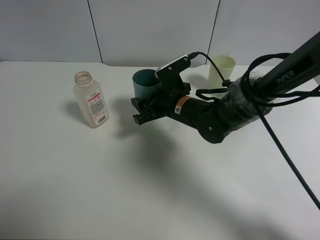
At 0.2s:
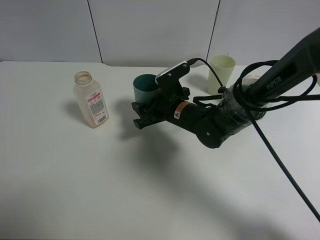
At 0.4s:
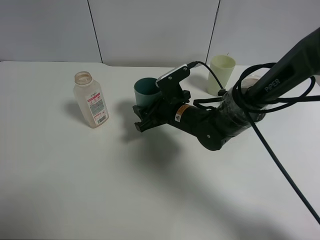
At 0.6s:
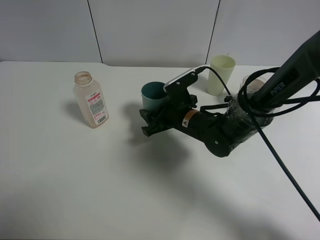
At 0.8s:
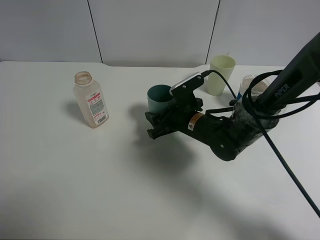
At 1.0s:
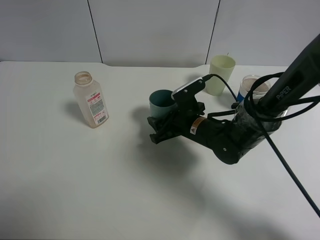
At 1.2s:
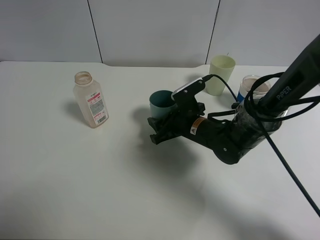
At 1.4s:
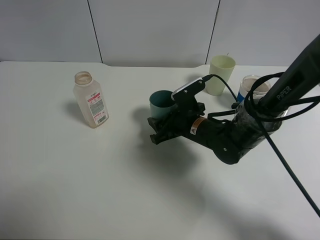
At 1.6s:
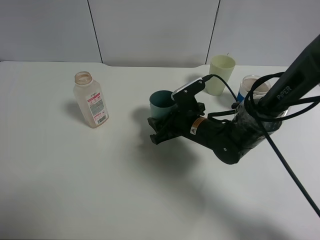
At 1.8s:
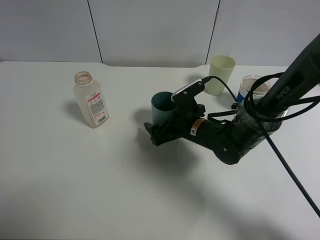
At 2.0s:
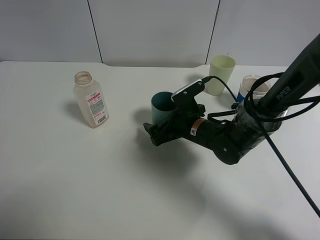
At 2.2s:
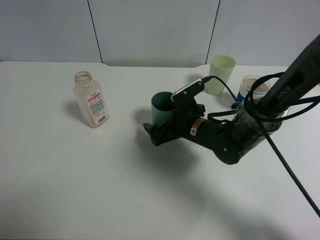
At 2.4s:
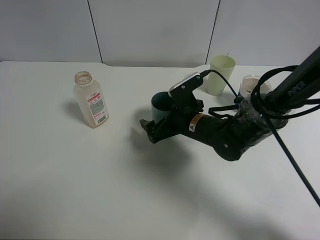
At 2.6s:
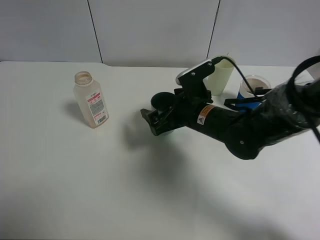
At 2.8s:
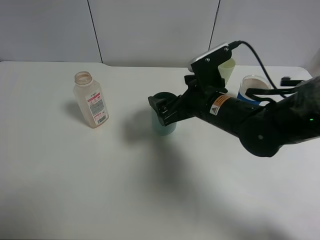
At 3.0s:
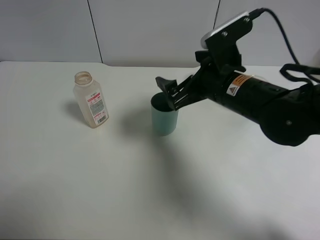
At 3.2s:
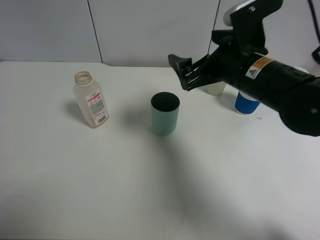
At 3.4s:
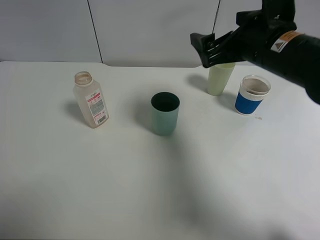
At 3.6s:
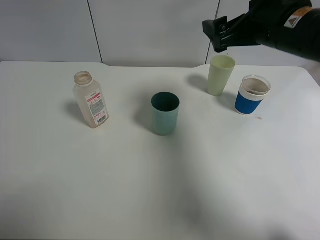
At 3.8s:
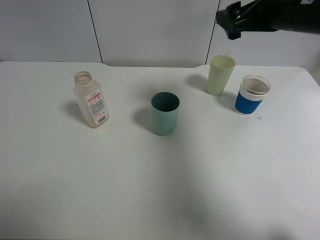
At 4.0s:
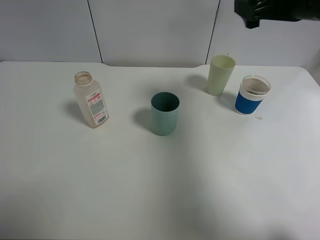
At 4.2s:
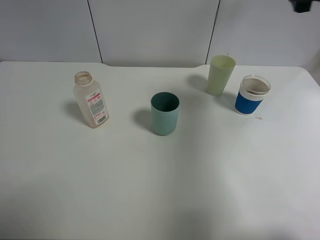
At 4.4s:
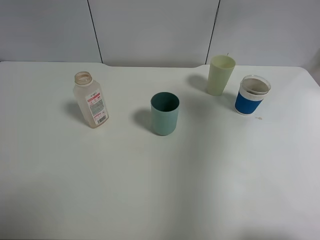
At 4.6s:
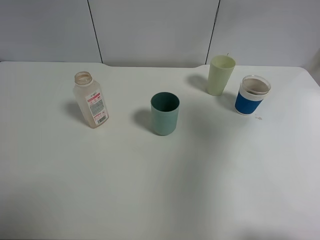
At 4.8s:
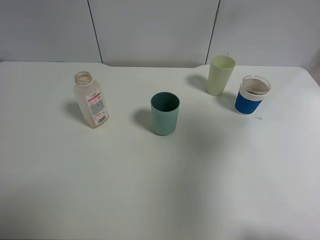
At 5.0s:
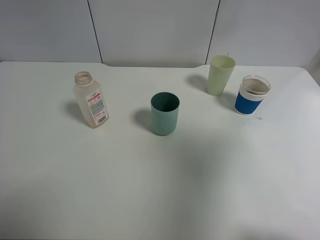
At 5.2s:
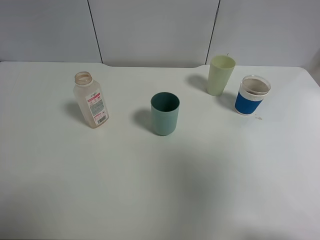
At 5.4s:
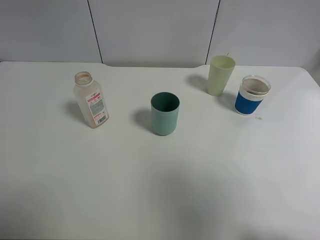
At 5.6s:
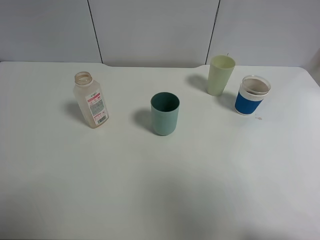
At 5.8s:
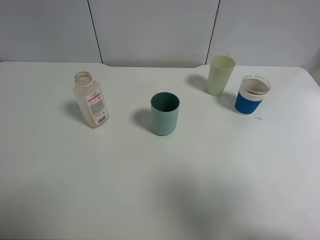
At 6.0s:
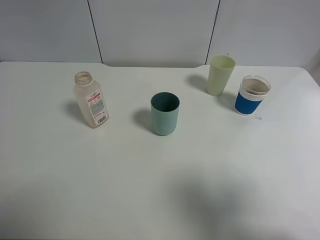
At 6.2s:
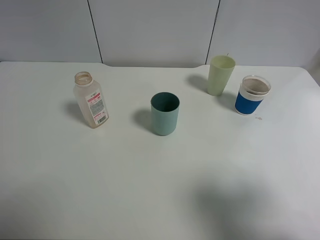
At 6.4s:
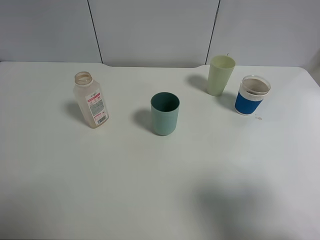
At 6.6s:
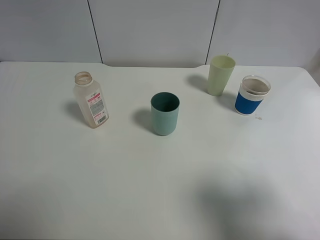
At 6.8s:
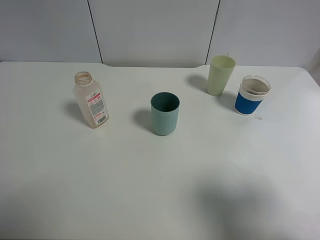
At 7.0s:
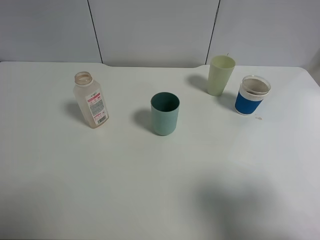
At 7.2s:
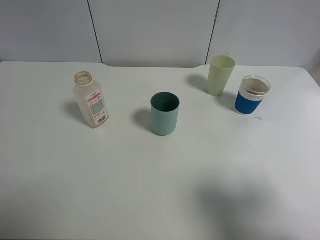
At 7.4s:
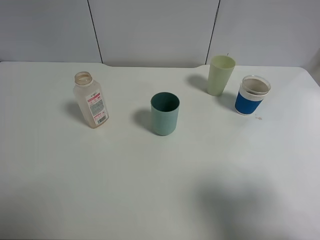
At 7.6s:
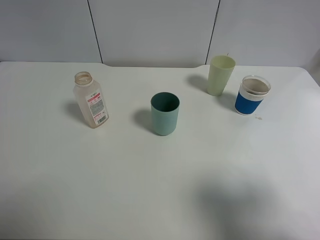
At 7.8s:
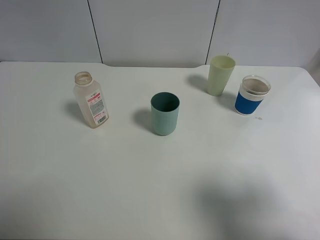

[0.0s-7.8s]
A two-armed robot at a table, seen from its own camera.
Task of the whole recording: use a clamp to hold the bottle of the drink, pour the beverage into a random cup, then clamp the cup containing the drink and pour the drink into another random cup.
Step, 0.0s to 2.4s: Place the blue plastic cup on the table with right gripper.
0.0s to 1.6s: The right gripper changes place by about 5 cm.
1.6s to 3.2s: The right gripper moves upward, some 15 cm, and opens its fingers.
3.2s to 4.6s: The right gripper is displaced to the right, upward and backward by about 25 cm.
4.6s to 6.2s: The right gripper heads backward and downward, covering about 20 cm.
6.2s to 7.8s: The two grippers keep their place.

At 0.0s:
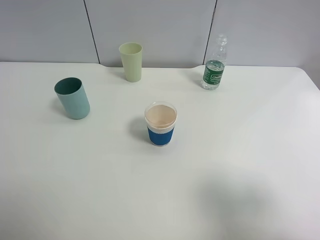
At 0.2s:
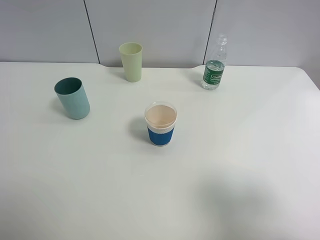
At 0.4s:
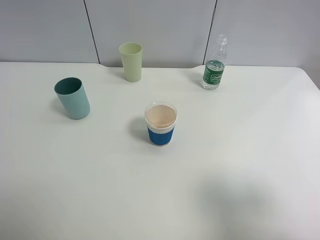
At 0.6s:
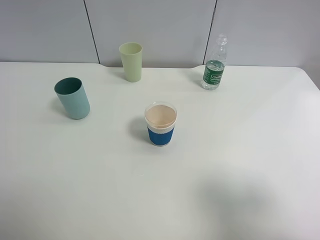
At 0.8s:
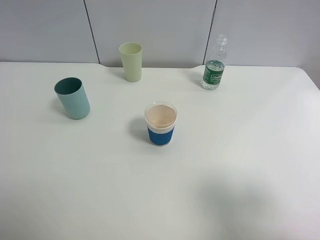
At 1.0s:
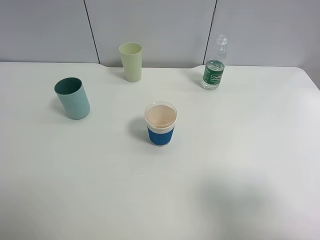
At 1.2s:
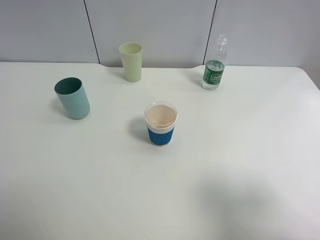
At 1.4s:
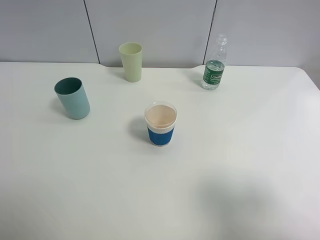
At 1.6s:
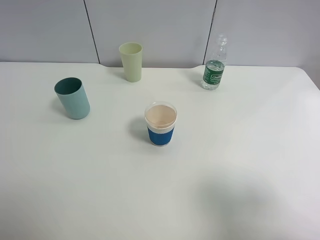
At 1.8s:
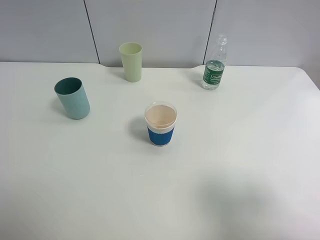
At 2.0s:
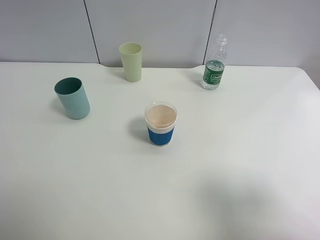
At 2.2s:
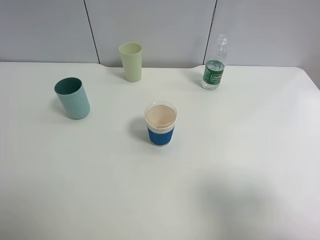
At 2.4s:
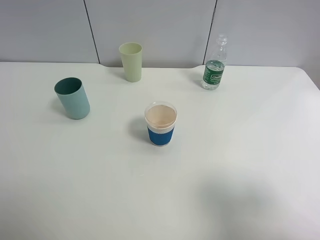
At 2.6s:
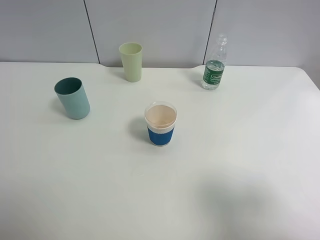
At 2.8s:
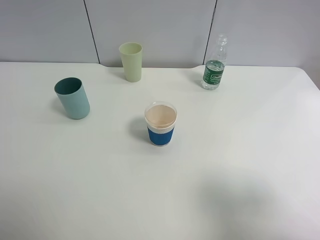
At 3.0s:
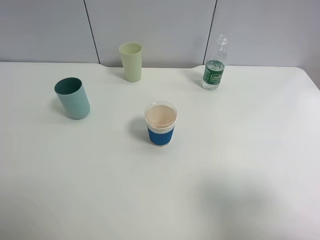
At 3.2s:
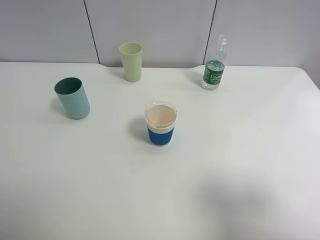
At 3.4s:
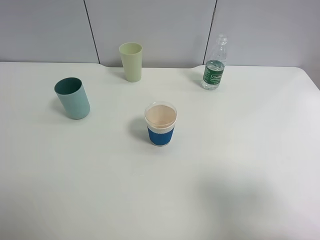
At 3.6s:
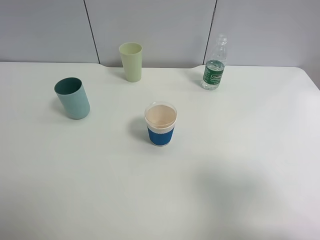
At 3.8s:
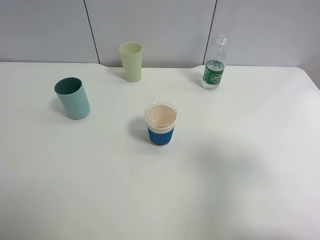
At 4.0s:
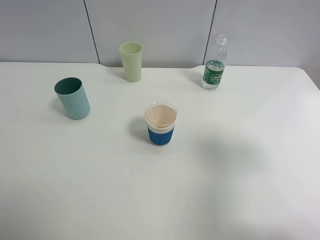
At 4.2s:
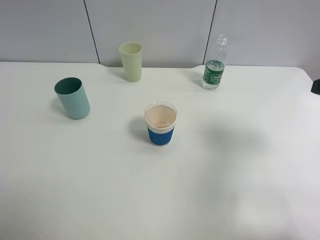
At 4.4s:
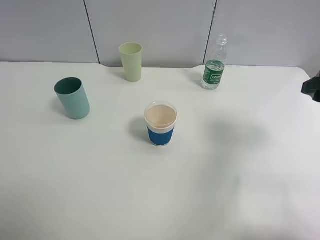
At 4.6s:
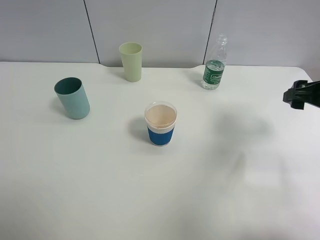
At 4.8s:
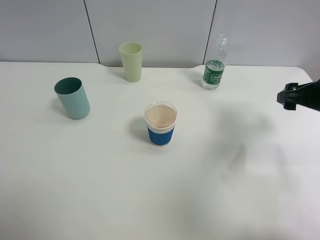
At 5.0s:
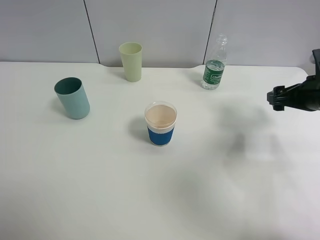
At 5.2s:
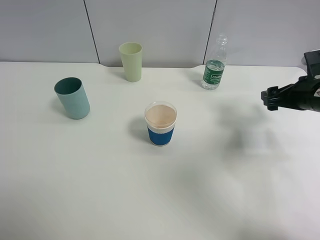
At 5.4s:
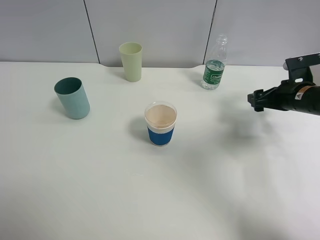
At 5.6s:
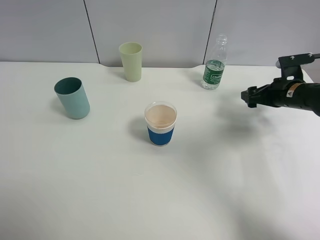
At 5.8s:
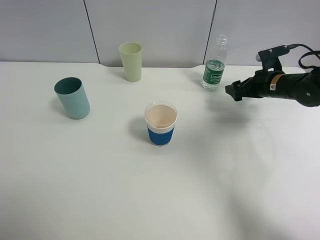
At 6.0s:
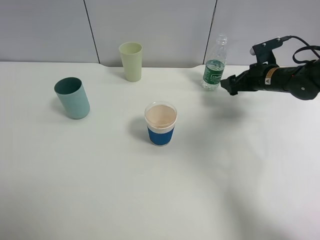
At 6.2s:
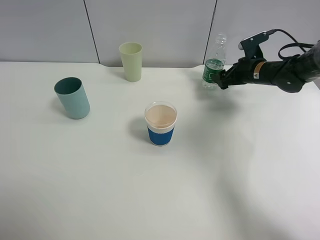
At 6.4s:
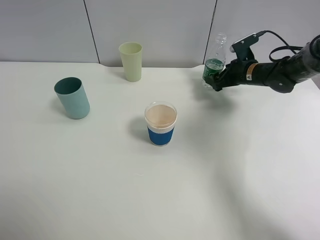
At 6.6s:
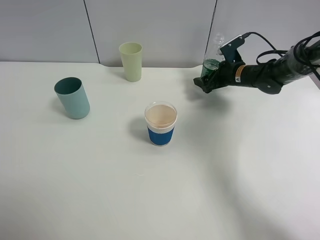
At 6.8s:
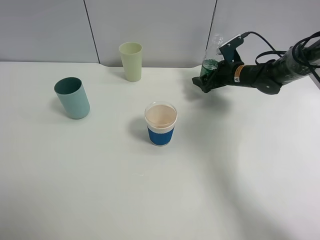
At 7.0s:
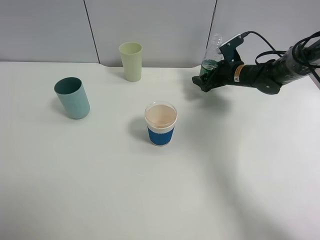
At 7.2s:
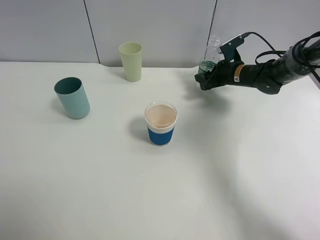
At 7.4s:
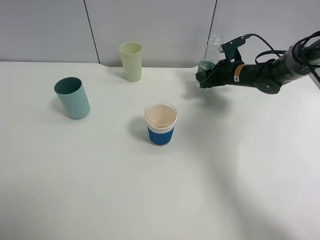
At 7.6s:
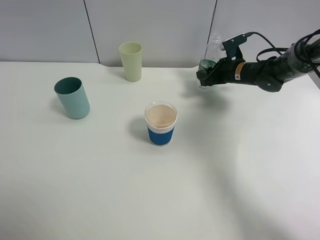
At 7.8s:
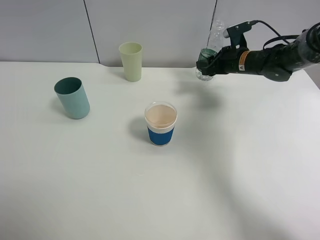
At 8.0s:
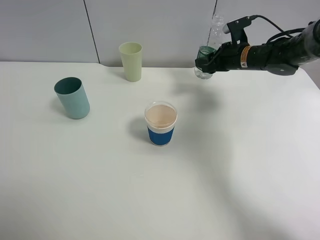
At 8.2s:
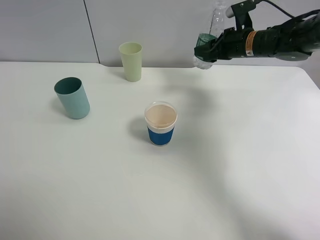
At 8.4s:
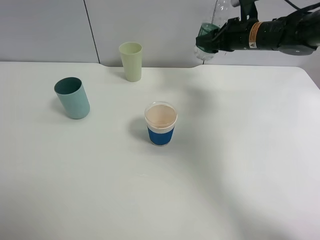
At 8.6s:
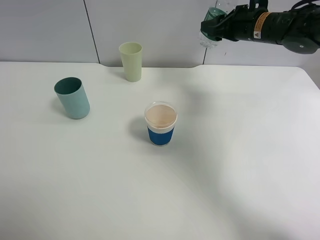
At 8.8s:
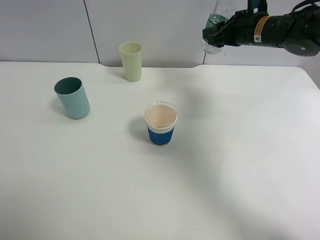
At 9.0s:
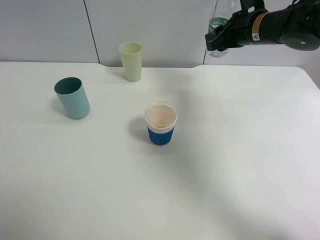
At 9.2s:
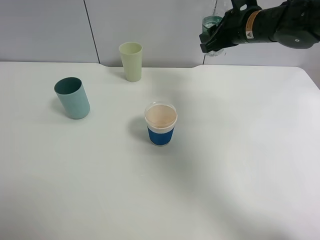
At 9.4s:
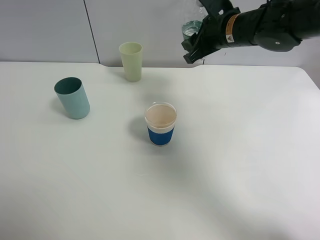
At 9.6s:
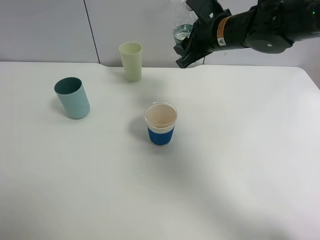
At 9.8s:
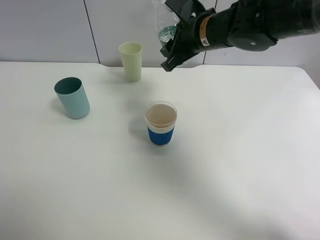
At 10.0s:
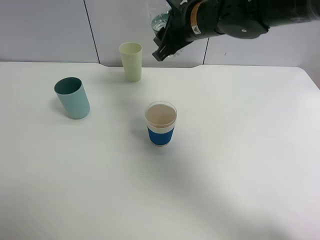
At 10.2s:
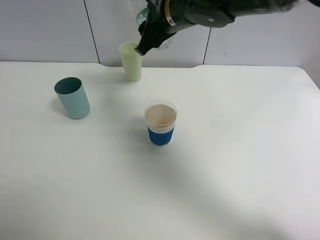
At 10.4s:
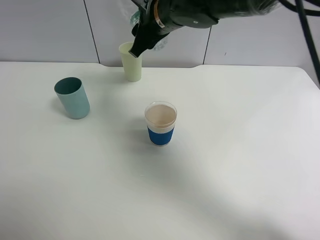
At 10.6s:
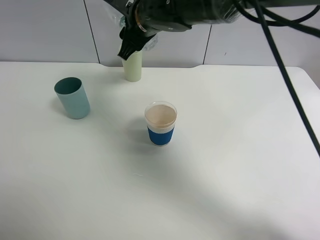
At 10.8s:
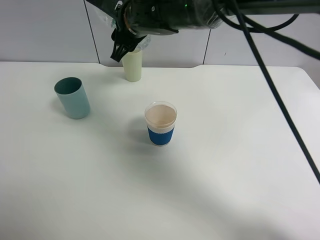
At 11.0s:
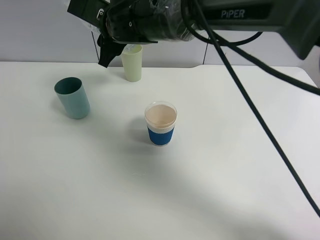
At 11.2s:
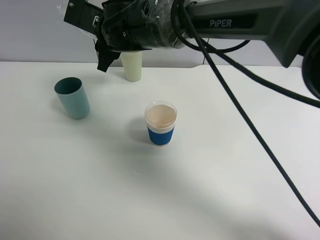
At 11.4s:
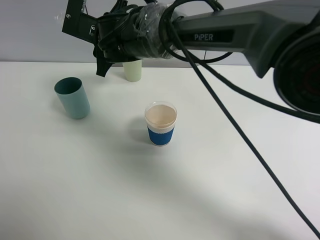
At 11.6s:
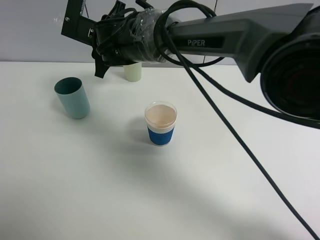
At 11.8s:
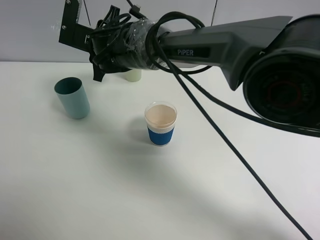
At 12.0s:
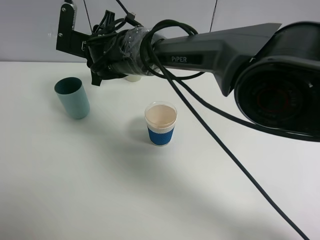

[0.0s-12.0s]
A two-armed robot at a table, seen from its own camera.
Task of the whole recording: use a clamp to hold the bottle of the drink, pour the beverage into a random cup, then clamp the cup containing the drink and pour the drink into another random cup.
Step, 0.0s to 10.2s: Pick up the water bottle with right gripper.
0.0s to 3.0s: Both grippers stay about where they are.
3.0s to 4.4s: The right gripper goes some 20 cm forward.
4.4s to 6.0s: The right gripper is displaced forward and downward by approximately 25 cm.
6.0s to 7.6s: The right gripper heads to the left, covering approximately 5 cm, and closes up.
7.6s to 9.0s: The right gripper heads upward and backward, covering roughly 15 cm.
9.0s to 10.4s: The right gripper moves to the left, approximately 20 cm.
10.4s to 12.0s: The right gripper moves to the left and downward, approximately 15 cm.

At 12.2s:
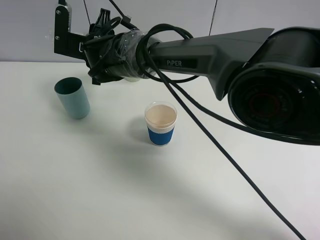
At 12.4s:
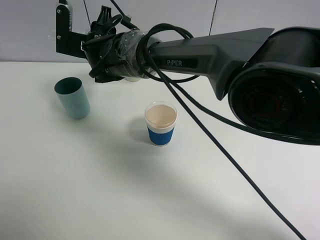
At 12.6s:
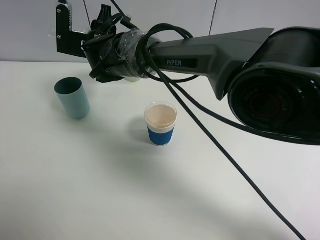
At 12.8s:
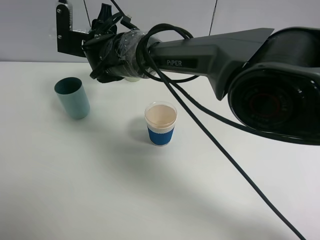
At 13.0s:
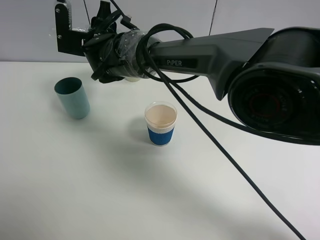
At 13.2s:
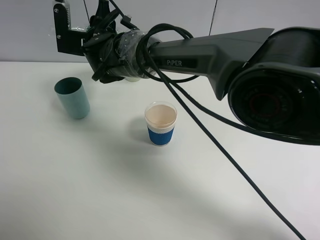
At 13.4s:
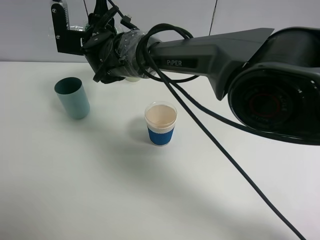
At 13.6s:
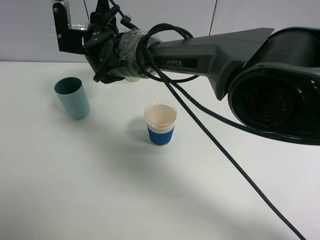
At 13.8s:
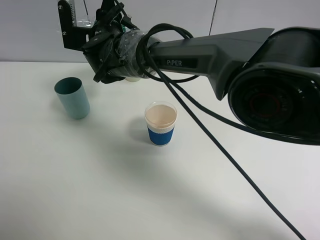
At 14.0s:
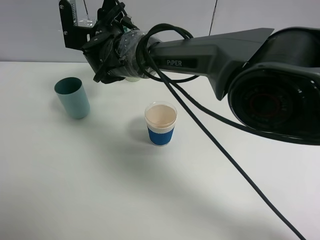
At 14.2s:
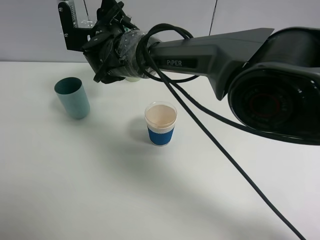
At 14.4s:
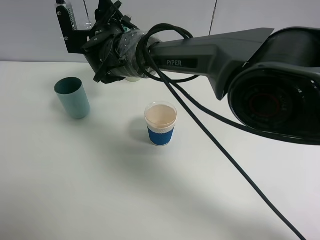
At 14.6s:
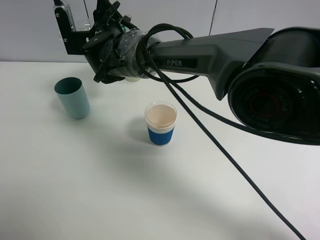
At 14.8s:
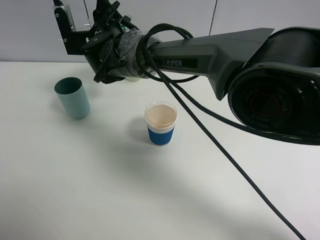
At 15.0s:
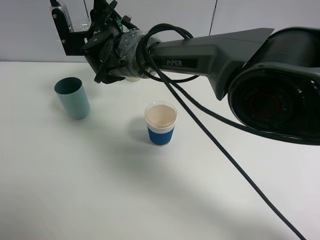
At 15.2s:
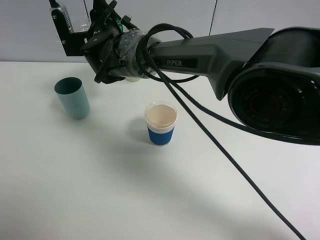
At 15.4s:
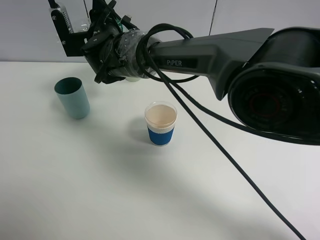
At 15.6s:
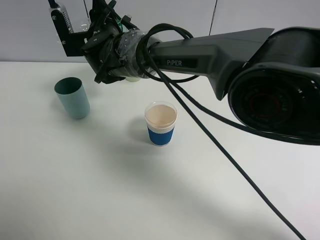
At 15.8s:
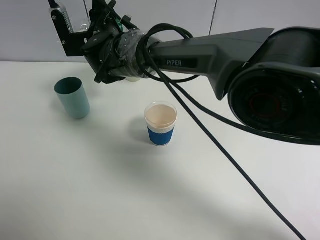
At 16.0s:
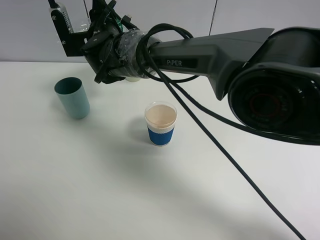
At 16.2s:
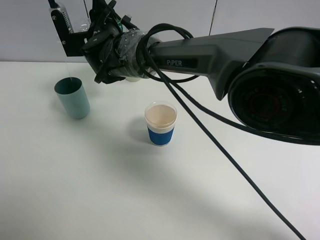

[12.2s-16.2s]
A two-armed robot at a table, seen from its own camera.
Task of the whole recording: use a clamp to hold the bottle of the drink, pour the beverage into a random cup, then clamp the cup containing the drink and pour the drink into another random cup.
12.2s to 13.6s: The grippers make only small movements.
13.6s to 14.8s: There are only small adjustments of the grippers.
14.8s to 16.2s: Neither gripper changes place.
